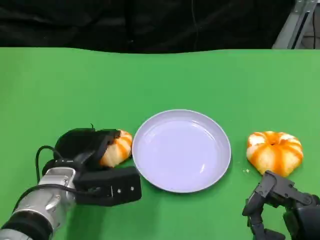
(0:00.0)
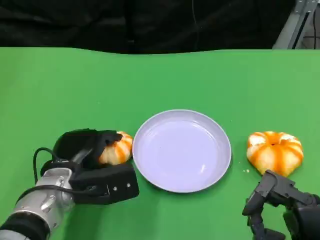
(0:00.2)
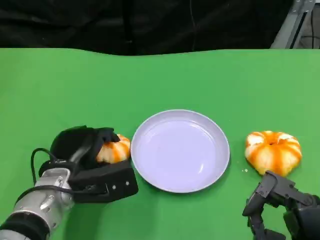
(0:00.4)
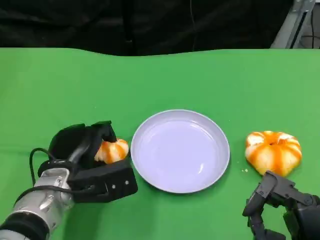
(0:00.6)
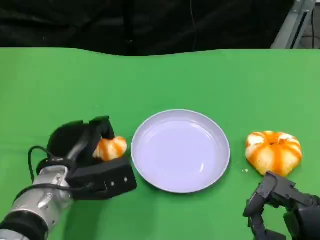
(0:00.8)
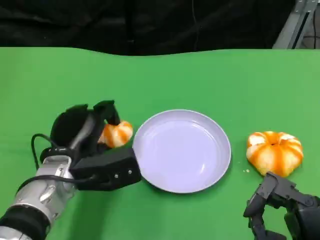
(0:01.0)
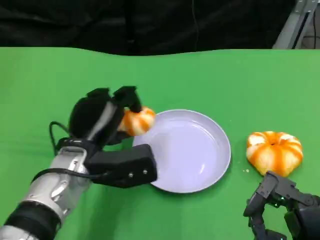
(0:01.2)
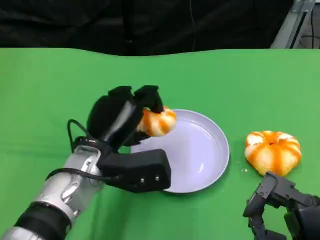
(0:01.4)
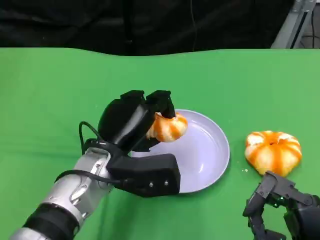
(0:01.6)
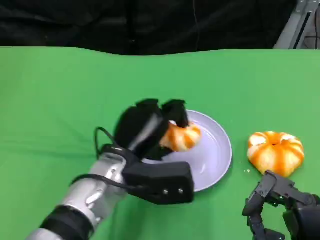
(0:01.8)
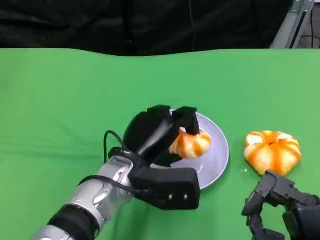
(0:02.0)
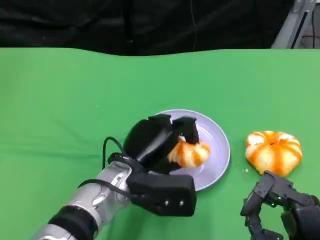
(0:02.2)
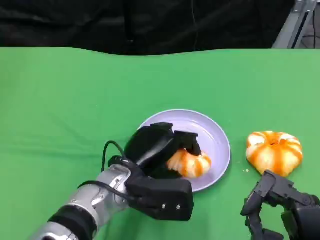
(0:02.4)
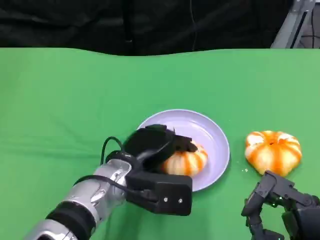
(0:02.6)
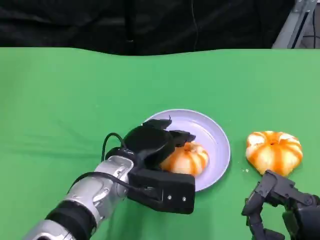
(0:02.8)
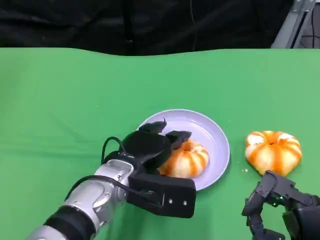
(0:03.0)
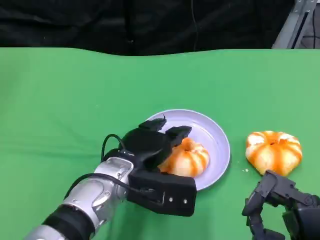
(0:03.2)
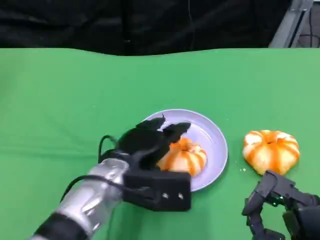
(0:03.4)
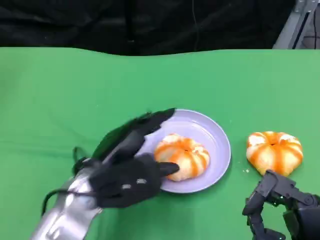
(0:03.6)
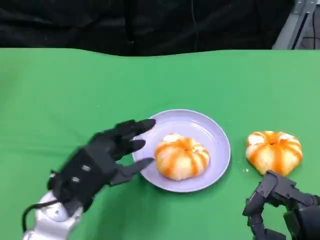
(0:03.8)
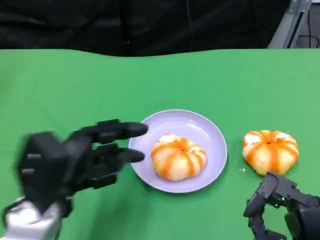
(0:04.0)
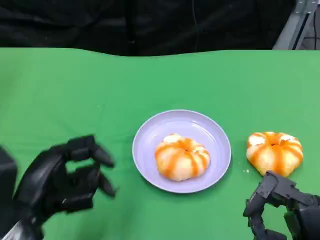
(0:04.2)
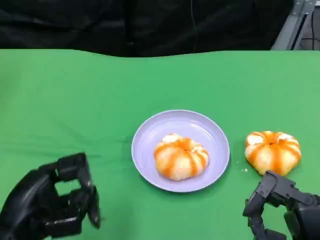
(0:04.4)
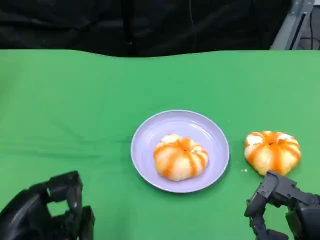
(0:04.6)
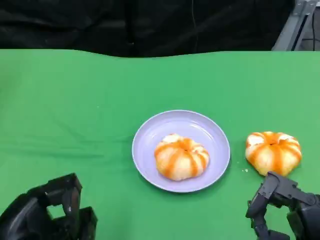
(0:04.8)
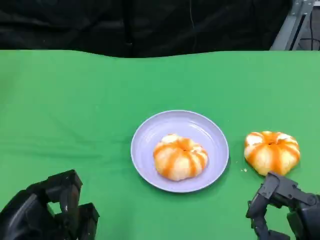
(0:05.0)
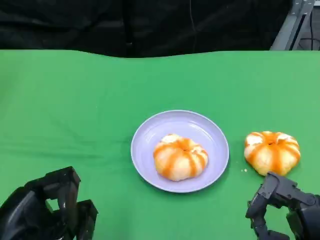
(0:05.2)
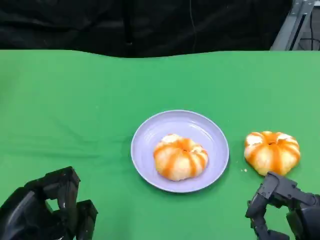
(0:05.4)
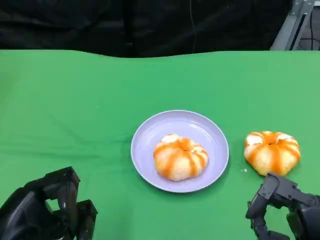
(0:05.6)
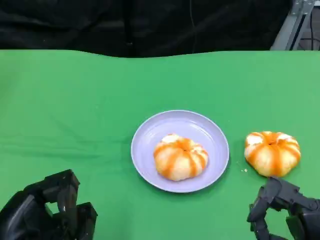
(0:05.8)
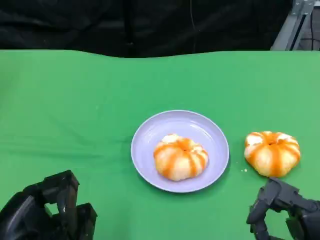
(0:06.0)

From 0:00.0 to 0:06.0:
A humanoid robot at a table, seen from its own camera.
Task of the whole recording: Grasp the bread from the table and place it into the plate.
From 0:00.0 to 0:01.6: The left hand shifts some 5 cm to the right.
From 0:03.0 to 0:04.4: The left hand heads to the left and backward, covering about 20 cm.
From 0:04.4 to 0:06.0: The hands make only small movements.

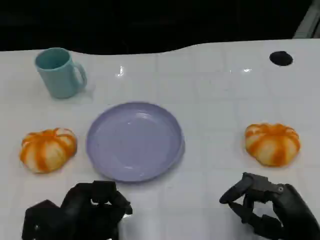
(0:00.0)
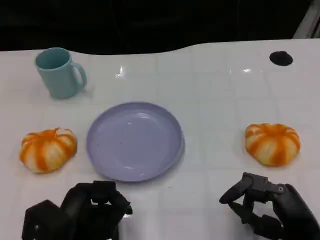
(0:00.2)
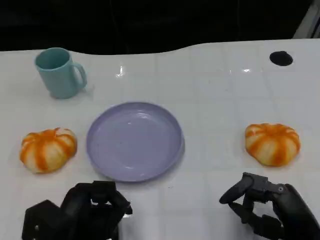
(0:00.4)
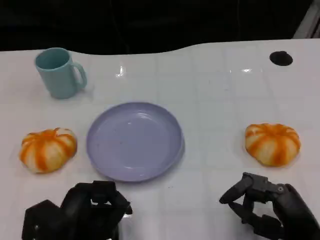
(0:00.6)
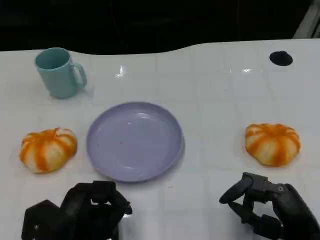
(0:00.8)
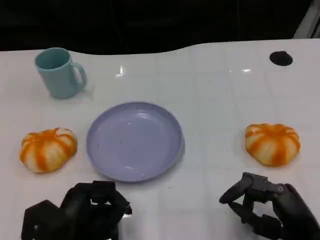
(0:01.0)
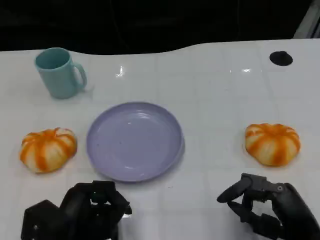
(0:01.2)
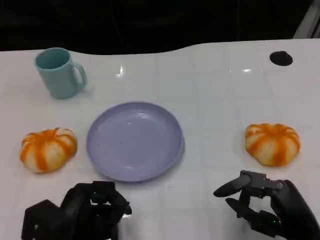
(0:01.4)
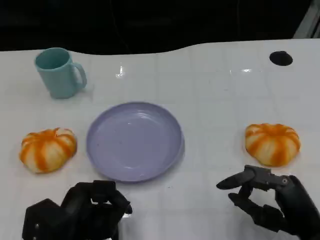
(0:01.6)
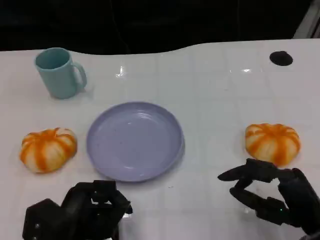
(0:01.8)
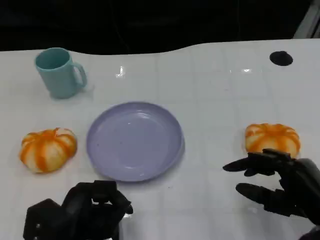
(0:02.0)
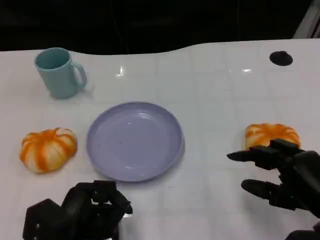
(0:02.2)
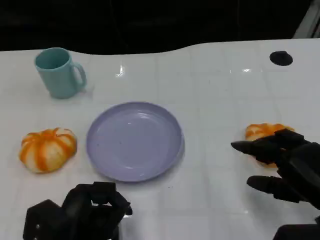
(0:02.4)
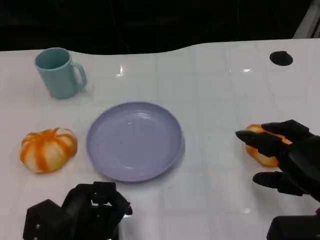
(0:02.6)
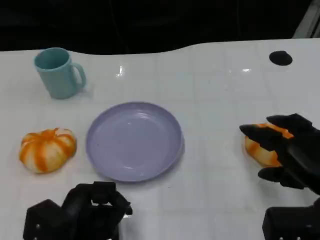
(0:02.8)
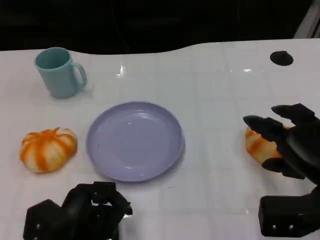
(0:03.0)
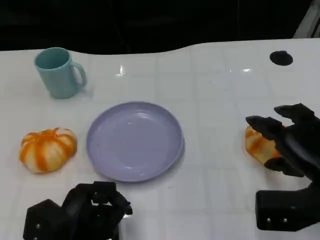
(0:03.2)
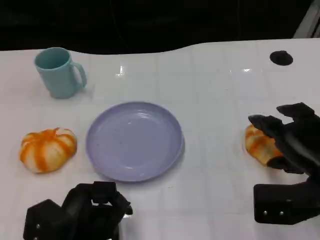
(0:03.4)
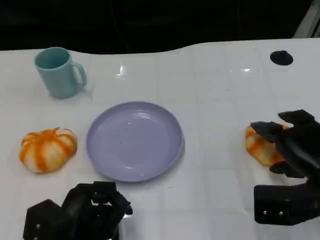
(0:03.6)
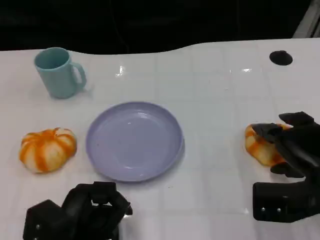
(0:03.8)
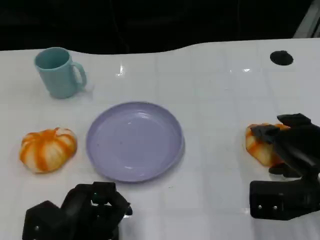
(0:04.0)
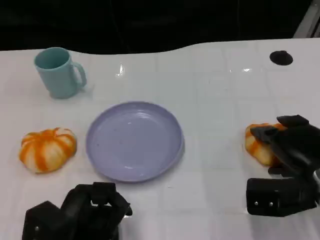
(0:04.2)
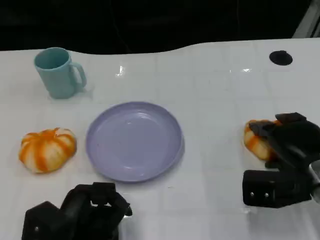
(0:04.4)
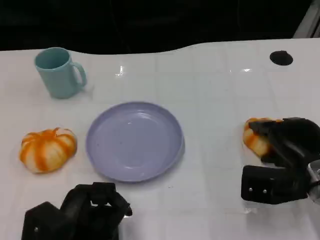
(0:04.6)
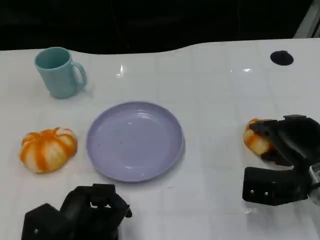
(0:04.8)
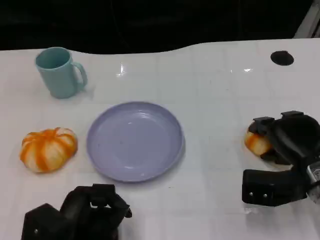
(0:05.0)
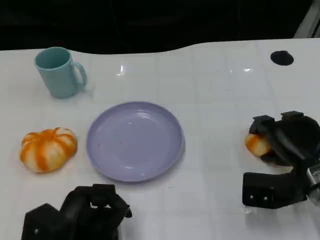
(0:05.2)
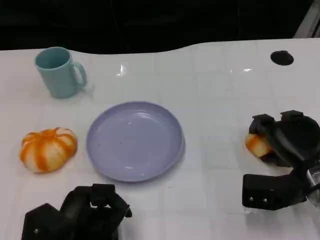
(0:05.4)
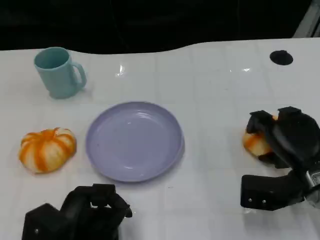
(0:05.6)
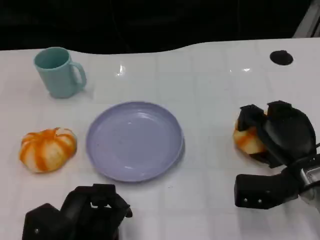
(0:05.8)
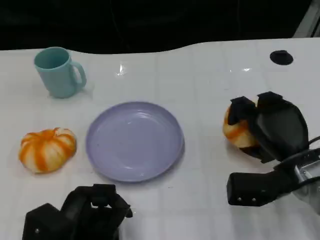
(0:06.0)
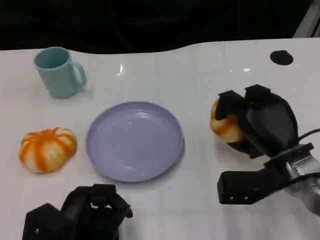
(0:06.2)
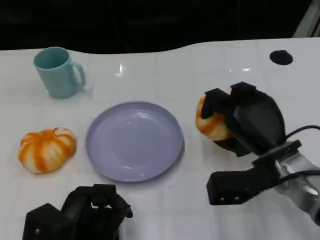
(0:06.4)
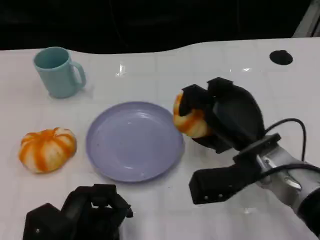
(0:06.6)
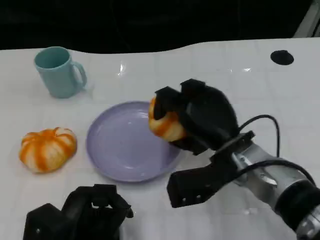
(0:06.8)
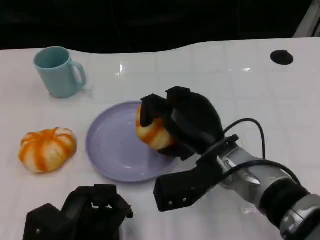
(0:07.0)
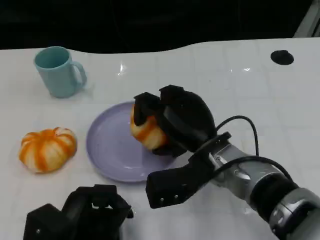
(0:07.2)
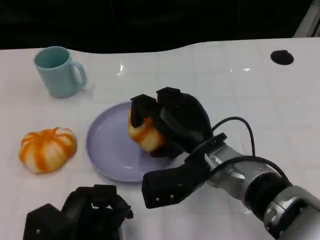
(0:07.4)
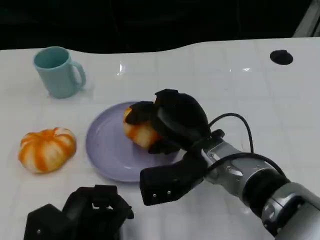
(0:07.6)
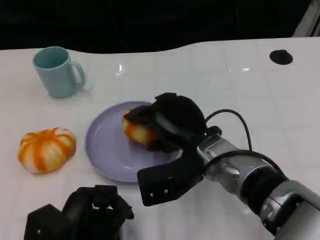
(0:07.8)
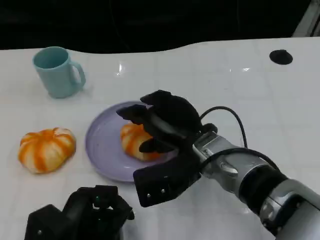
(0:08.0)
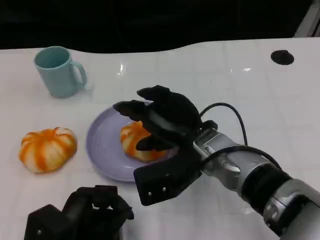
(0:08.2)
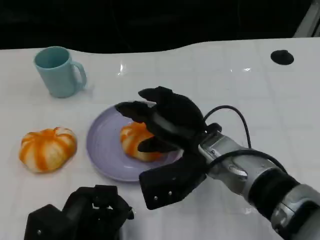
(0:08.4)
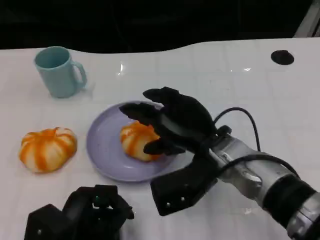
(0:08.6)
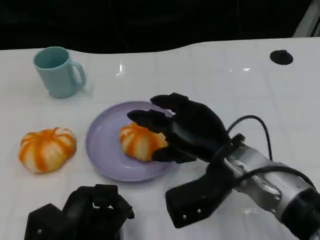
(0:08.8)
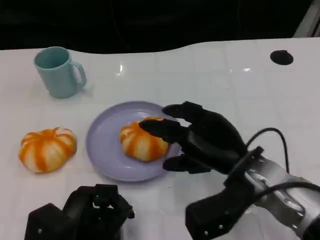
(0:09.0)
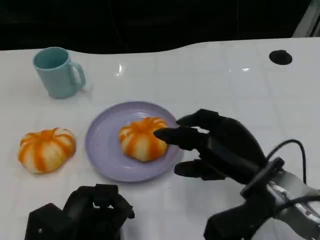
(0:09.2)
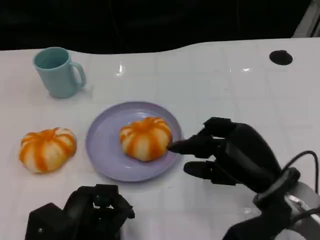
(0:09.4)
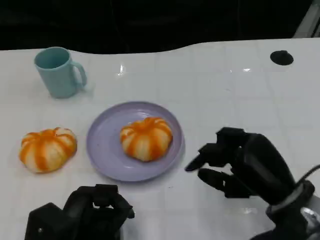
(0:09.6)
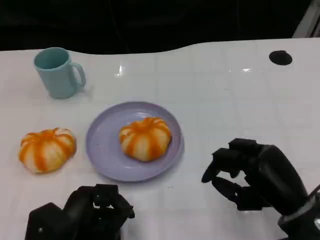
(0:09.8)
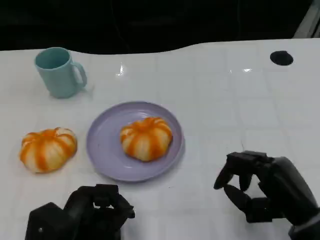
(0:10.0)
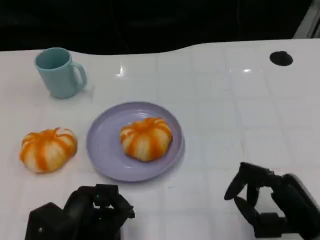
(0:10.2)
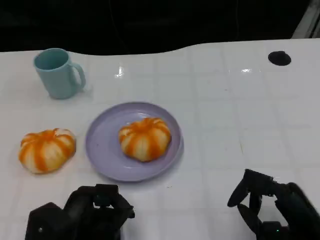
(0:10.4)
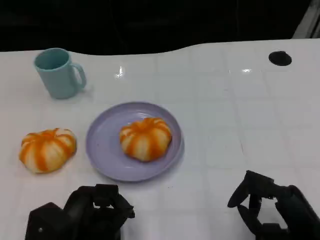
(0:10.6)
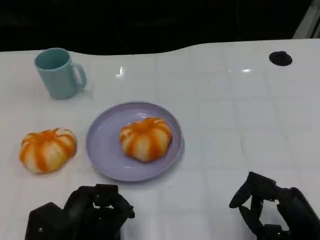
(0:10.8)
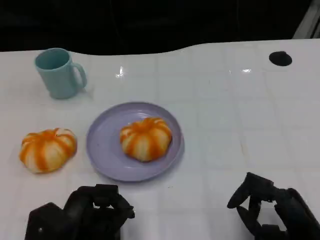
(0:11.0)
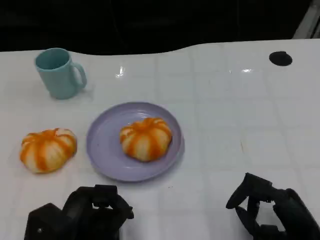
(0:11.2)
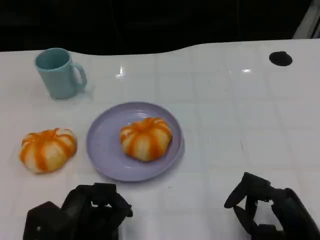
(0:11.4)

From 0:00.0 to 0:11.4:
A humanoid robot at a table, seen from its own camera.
Task of the whole recording: Grasp the bread from the table and place it into the plate.
From 0:00.0 to 0:01.4: The two hands keep their place.
From 0:01.4 to 0:02.8: The right hand goes some 5 cm upward.
From 0:02.8 to 0:04.2: The right hand ends up some 5 cm from where it was.
From 0:04.2 to 0:05.6: The hands stay close to where they were, moving slightly.
From 0:05.6 to 0:07.2: The right hand travels to the left by roughly 15 cm.
From 0:07.2 to 0:08.6: There are only small adjustments of the hands.
From 0:08.6 to 0:10.0: The right hand is displaced to the right and backward by roughly 15 cm.
From 0:10.0 to 0:11.4: The hands move only a little.

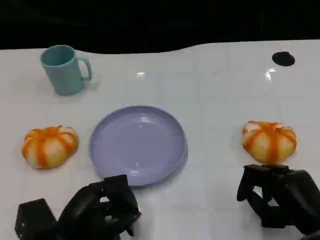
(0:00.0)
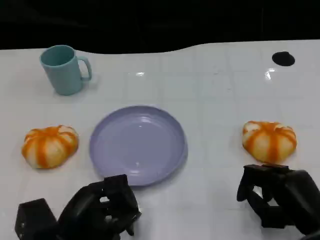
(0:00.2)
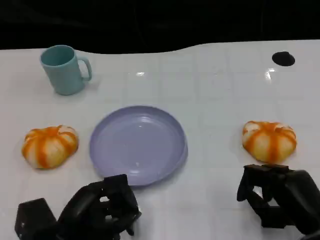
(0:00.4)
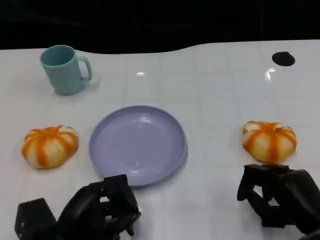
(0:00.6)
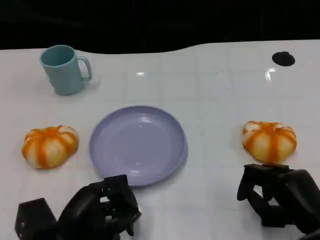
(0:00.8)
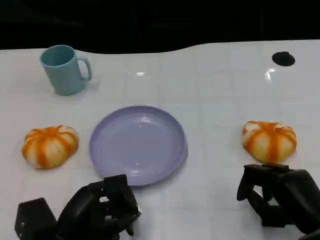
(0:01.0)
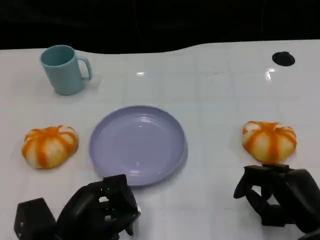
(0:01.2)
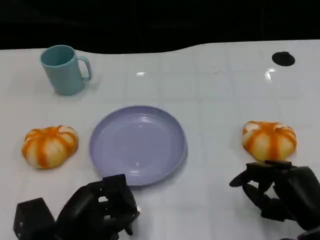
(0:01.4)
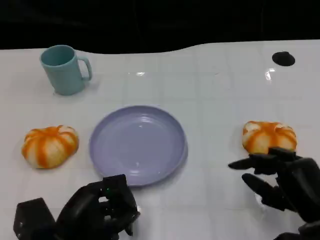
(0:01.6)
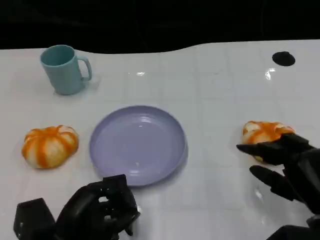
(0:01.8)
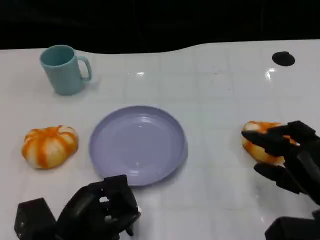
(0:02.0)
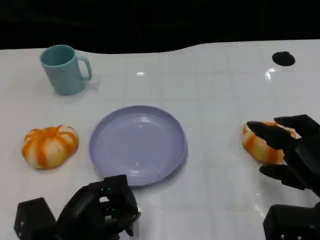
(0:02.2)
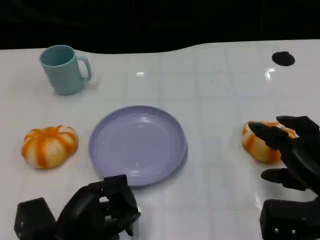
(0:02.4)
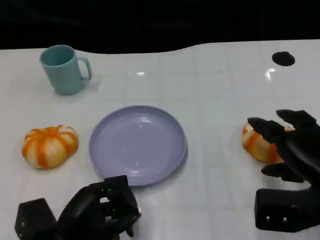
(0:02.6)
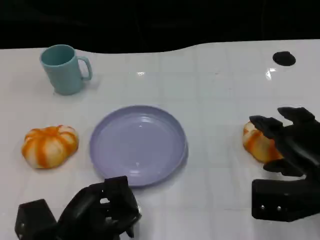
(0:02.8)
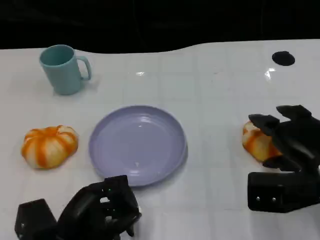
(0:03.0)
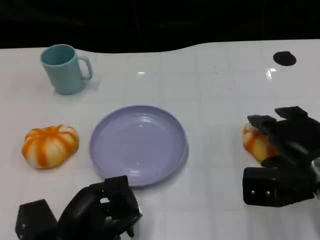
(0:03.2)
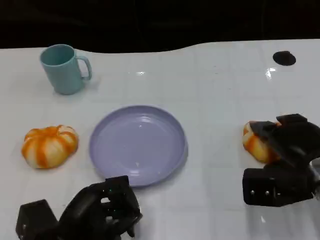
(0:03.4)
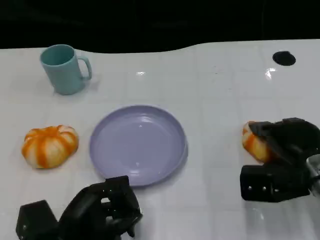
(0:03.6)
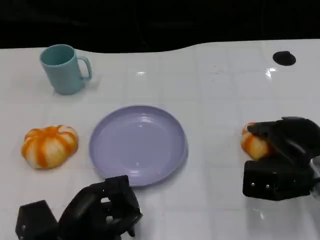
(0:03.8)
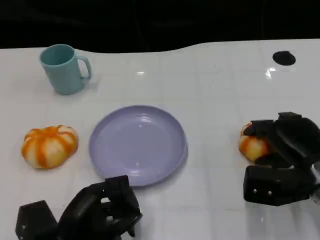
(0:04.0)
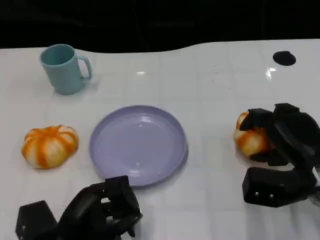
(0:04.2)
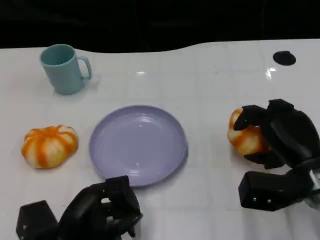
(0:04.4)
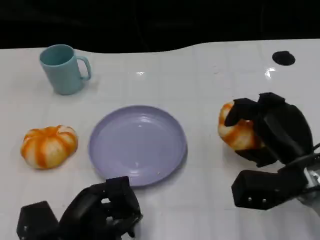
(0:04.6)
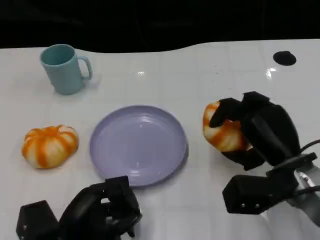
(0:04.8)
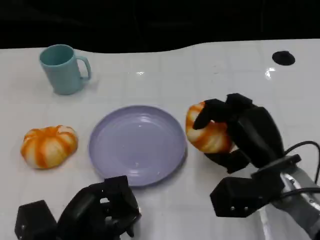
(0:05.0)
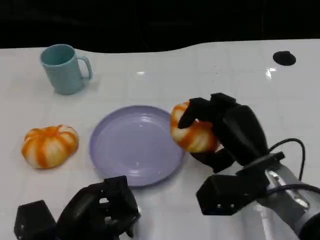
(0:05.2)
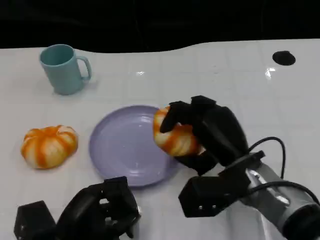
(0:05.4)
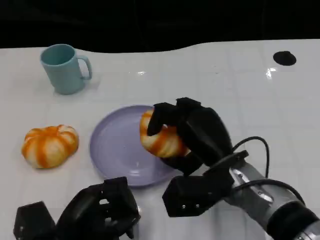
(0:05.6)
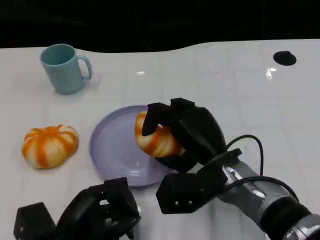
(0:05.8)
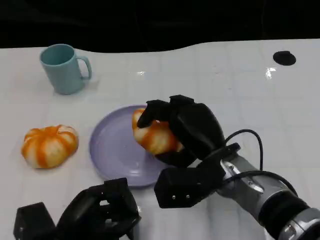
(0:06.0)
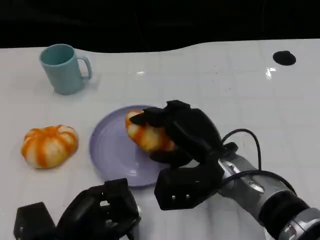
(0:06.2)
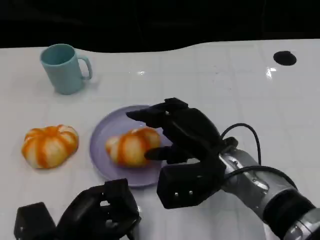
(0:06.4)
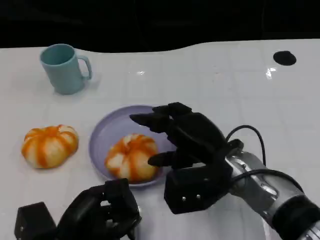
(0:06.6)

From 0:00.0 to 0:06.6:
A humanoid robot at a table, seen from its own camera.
Task of the whole recording: Grasp the bread from the table and place it into the plate.
From 0:00.0 to 0:01.6: There are only small adjustments of the hands.
From 0:01.6 to 0:03.2: The right hand moves forward, roughly 5 cm.
From 0:03.2 to 0:05.0: The right hand shifts about 5 cm to the left.
From 0:05.0 to 0:06.6: The right hand shifts approximately 5 cm to the left.
